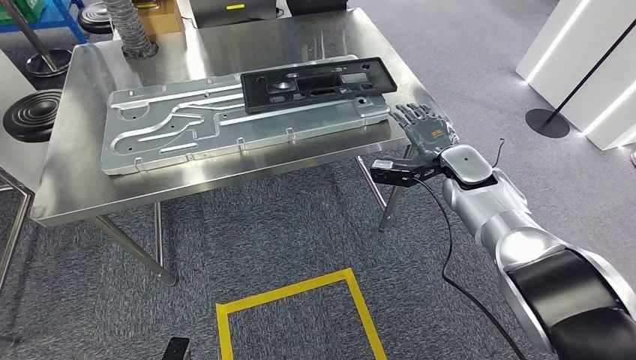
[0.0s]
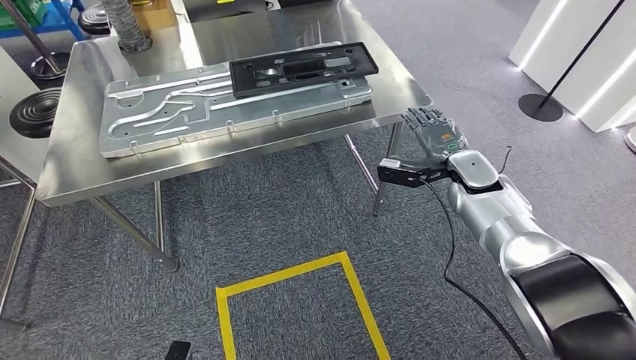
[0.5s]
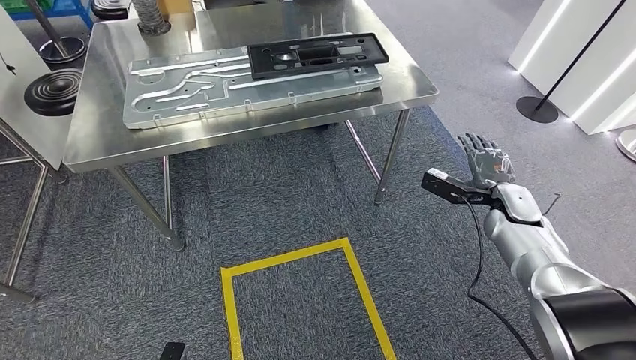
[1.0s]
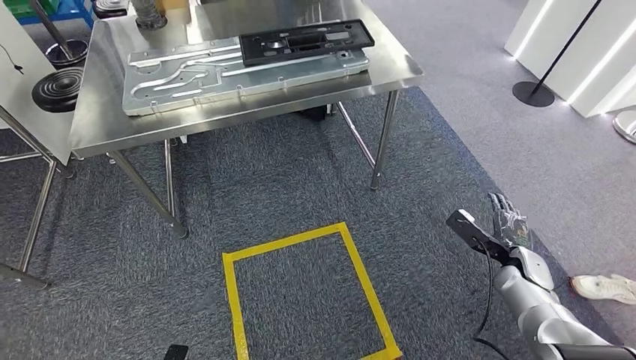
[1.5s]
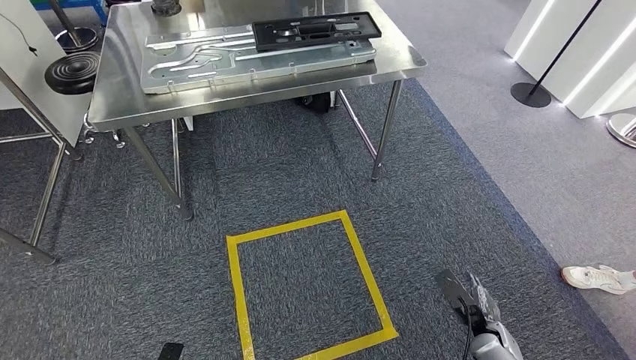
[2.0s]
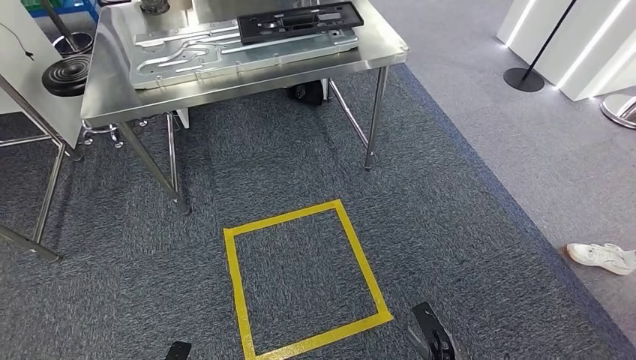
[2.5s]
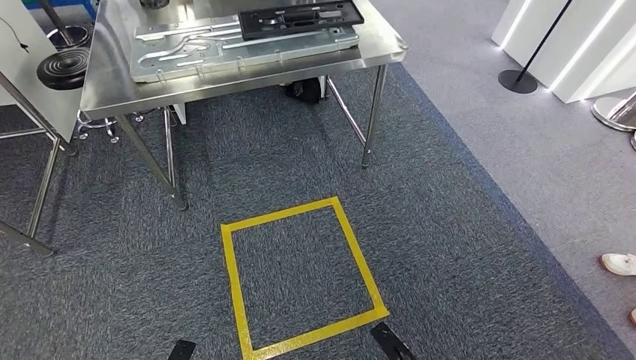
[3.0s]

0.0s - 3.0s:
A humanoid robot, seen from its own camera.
Step, 0.0s - 3.0s: Move to the initial position of the shelf.
